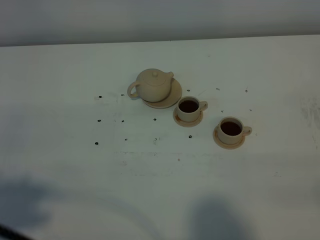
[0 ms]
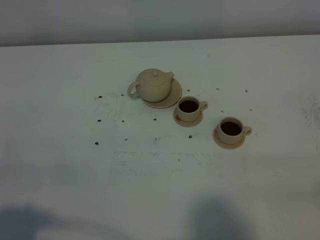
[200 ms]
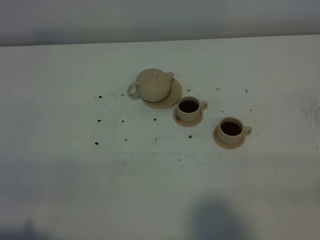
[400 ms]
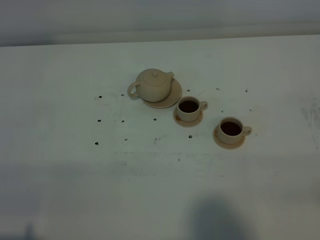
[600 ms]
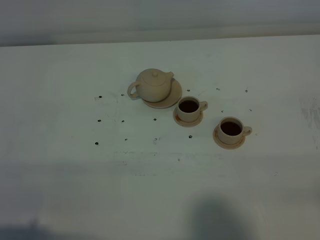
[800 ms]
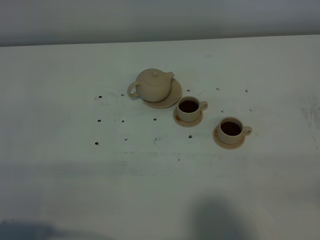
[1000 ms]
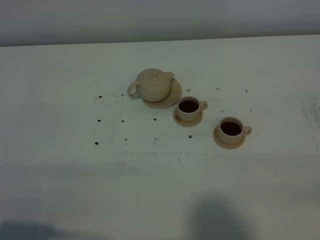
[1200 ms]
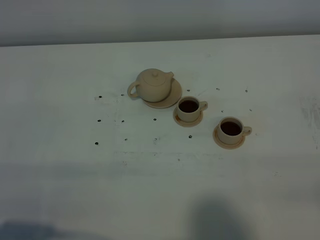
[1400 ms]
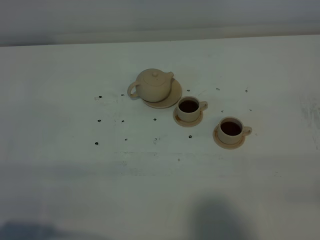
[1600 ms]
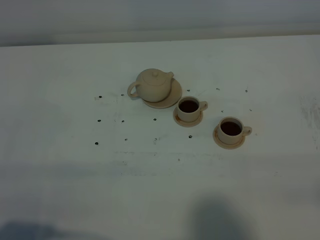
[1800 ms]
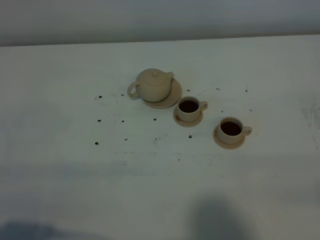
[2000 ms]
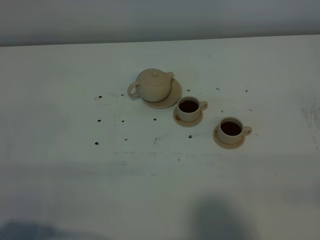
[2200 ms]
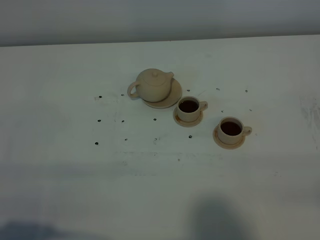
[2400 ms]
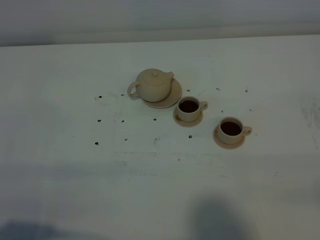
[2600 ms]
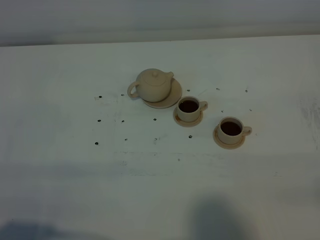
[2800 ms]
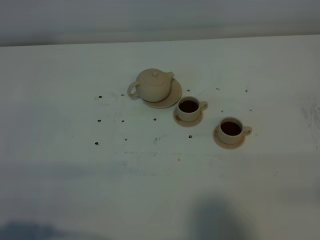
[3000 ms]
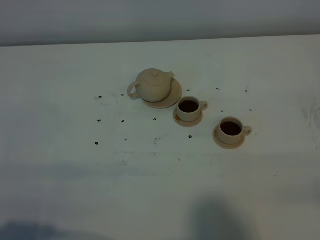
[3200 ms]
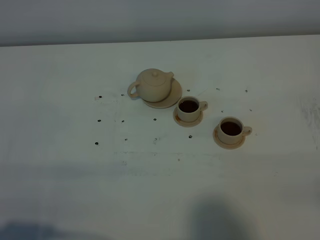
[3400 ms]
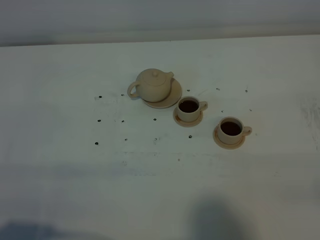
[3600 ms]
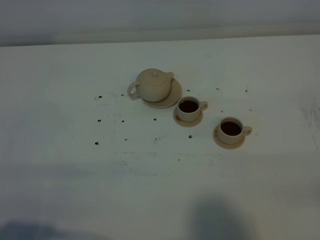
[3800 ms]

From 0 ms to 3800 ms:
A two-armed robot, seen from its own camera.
Task of the whole recording: grasp the brown teapot and pour the tea into the two brown teacups one by one, put the brown teapot back in its original place.
From 0 ms to 1200 ms: The left gripper moves downward, some 15 cm.
From 1200 ms to 3800 ms: Neither gripper changes place.
